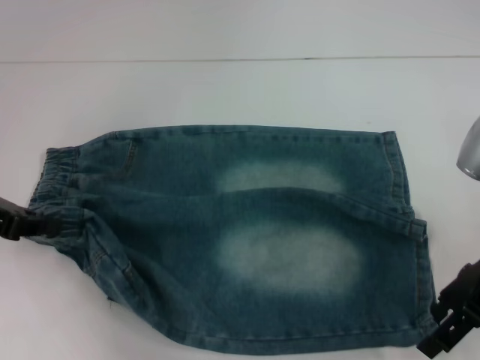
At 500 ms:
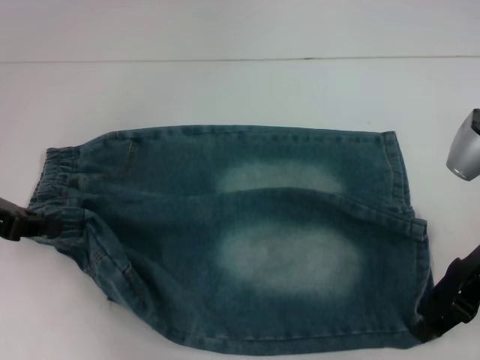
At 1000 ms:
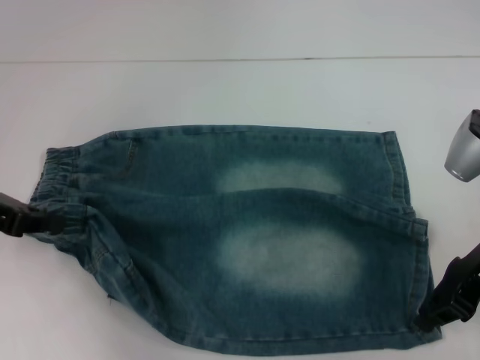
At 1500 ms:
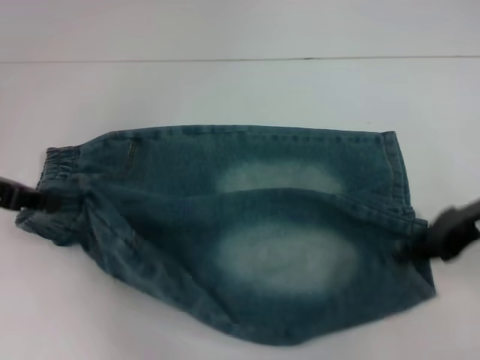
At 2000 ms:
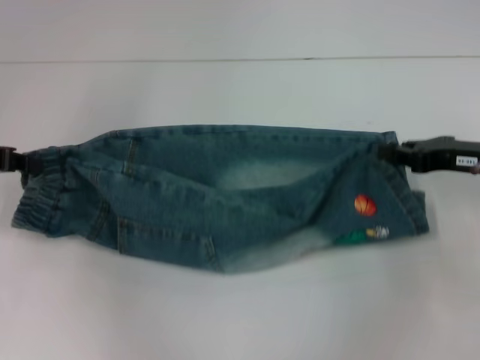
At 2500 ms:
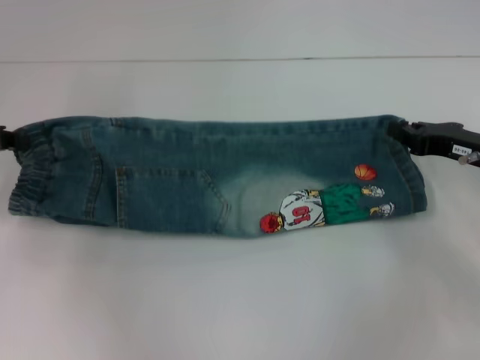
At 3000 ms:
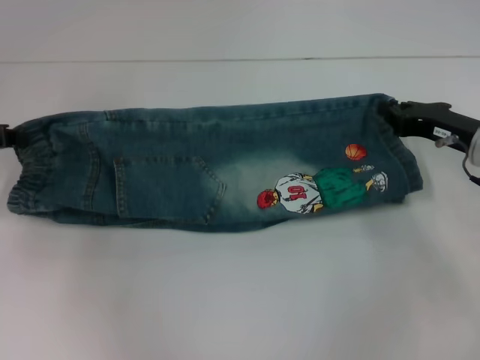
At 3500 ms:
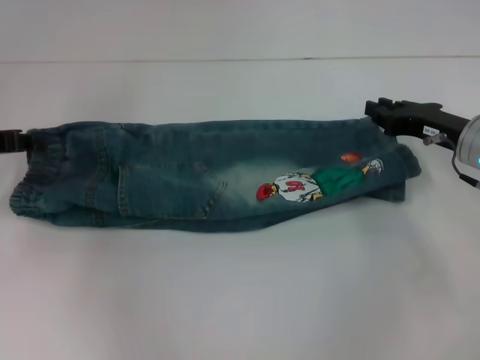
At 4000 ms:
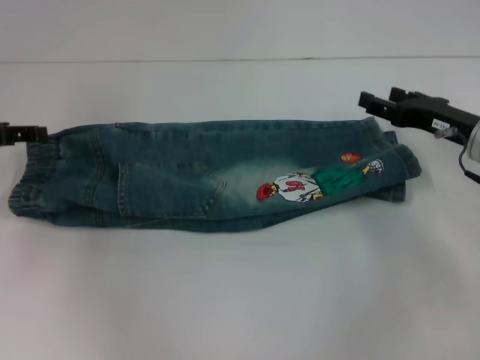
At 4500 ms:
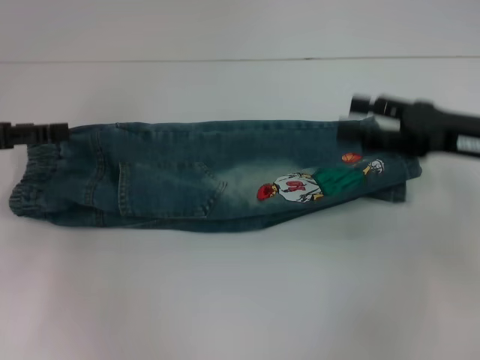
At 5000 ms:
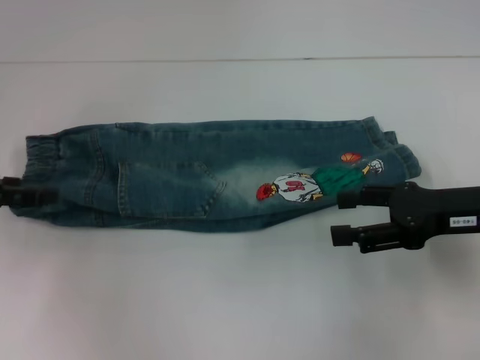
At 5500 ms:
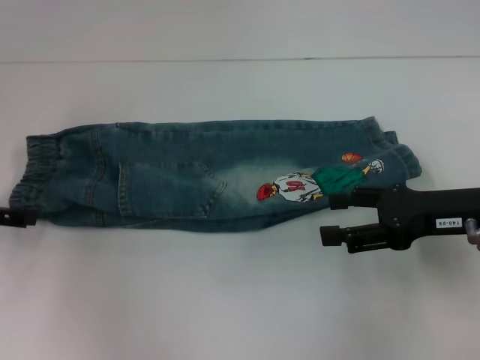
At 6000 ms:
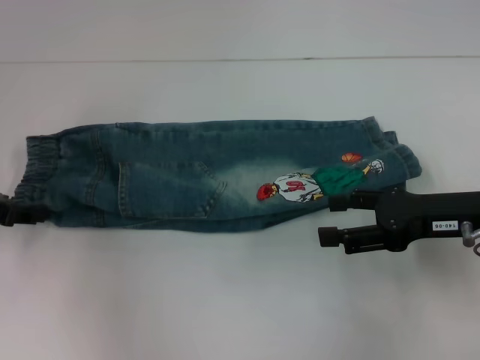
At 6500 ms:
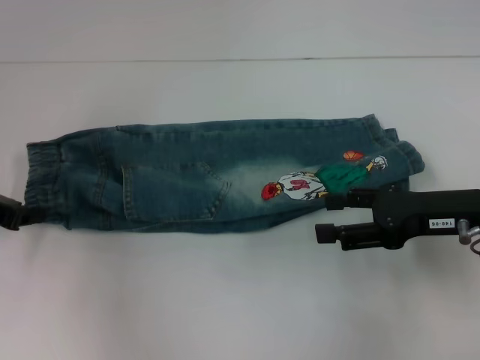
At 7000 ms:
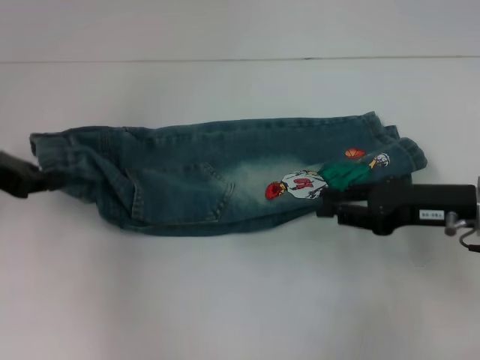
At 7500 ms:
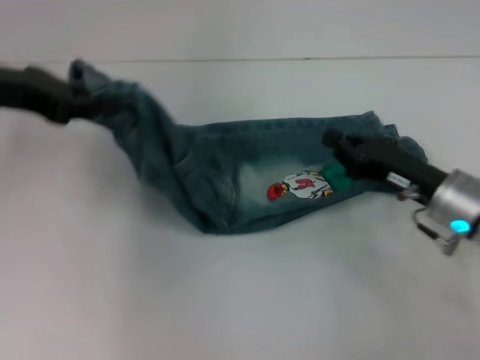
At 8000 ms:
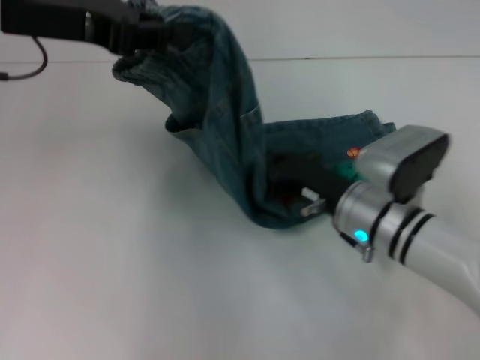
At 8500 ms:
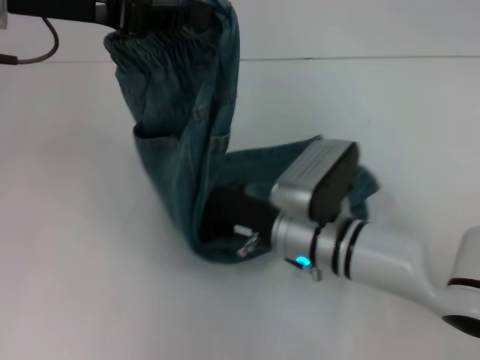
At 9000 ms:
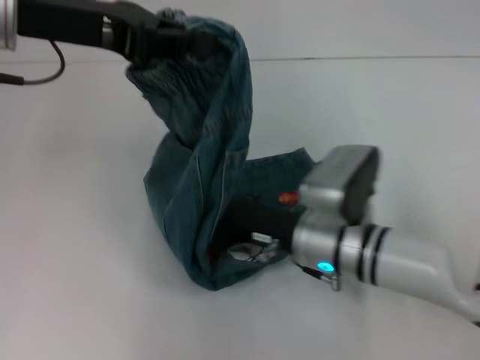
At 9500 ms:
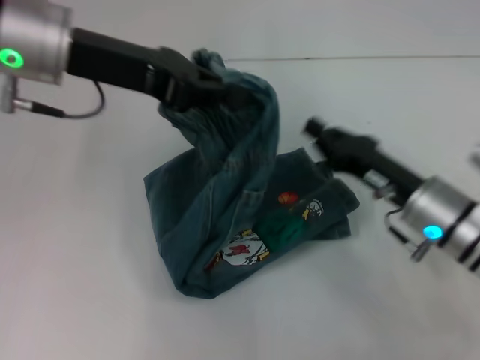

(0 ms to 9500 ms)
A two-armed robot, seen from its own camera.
Step, 1500 ms - 3500 ms: Fold upward with your right hand.
Step, 4000 ms - 6000 ms: Hold the waistband with your left hand.
Step, 7000 ms - 8500 ms: Press the middle of the pants with your left hand.
0 ms - 2000 ms: The right gripper shifts by roughly 5 cm, and closes.
2000 ms - 4000 ms: The left gripper opens up; the right gripper opens up.
4000 ms - 5500 ms: The left gripper opens up. The right gripper shifts roughly 5 cm backward, and opens its fingers.
5500 ms - 7500 ms: The left gripper travels upward and to the right by approximately 15 cm, and closes its fingers. The right gripper travels downward by some 5 cm, and closes up.
7500 ms - 9500 ms: The right gripper moves some 15 cm to the left and comes back, while the left gripper goes roughly 10 cm to the right.

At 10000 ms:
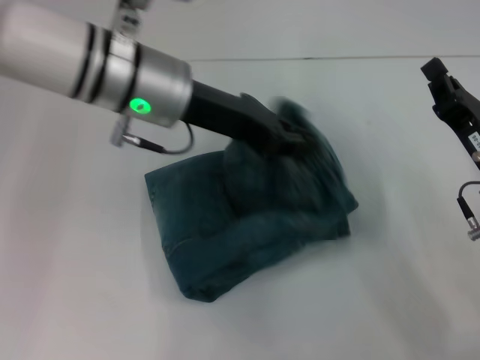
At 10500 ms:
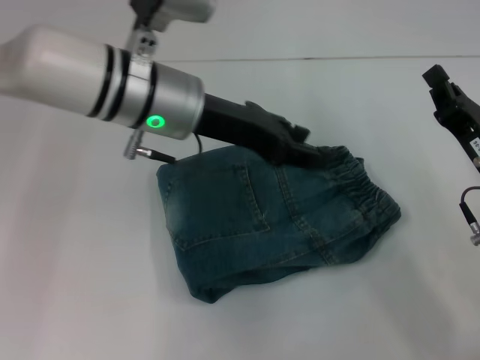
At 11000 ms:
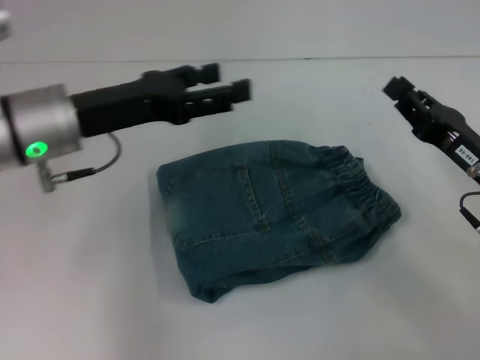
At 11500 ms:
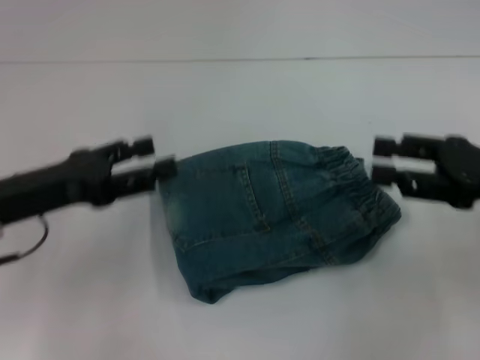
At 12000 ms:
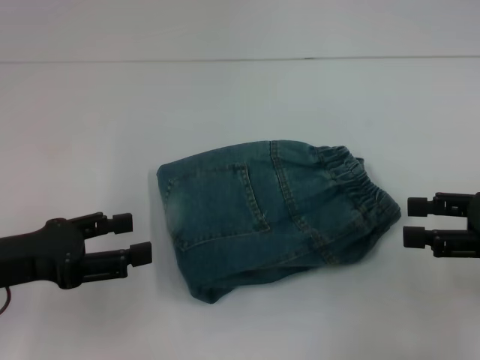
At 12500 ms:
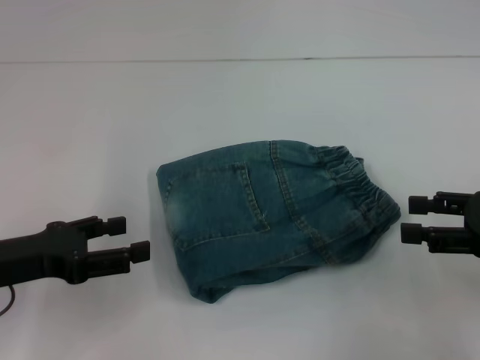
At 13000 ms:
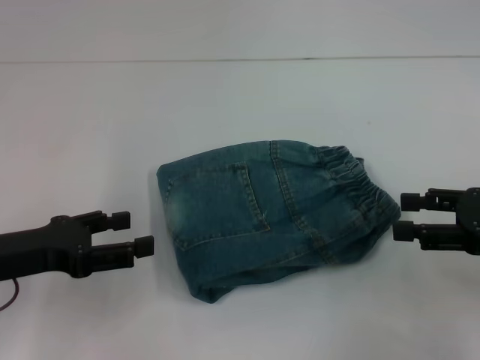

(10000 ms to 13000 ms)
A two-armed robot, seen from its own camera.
10000 ms - 11500 ms: The right gripper heads upward, covering about 10 cm, and opens its fingers. Meanwhile the left gripper shifts roughly 20 cm to the left, backward and downward, and opens up.
11500 ms - 13000 ms: The grippers make only small movements.

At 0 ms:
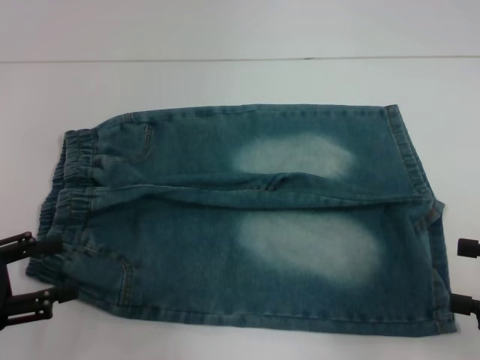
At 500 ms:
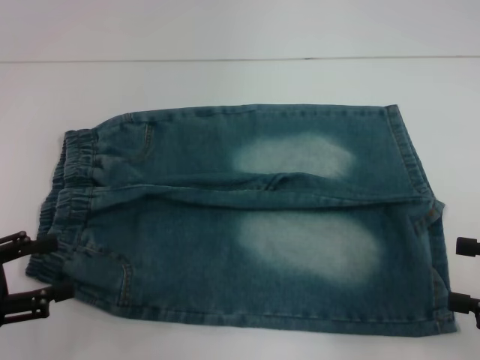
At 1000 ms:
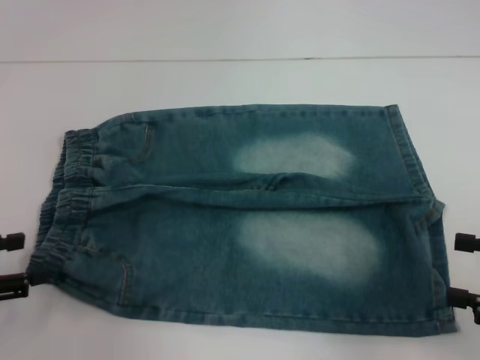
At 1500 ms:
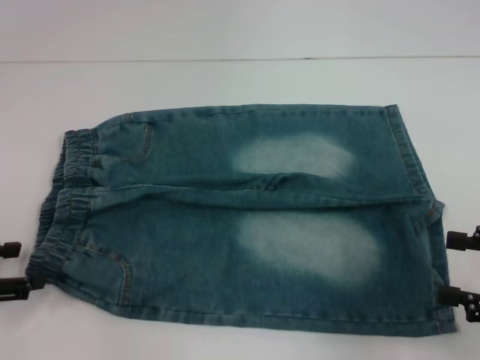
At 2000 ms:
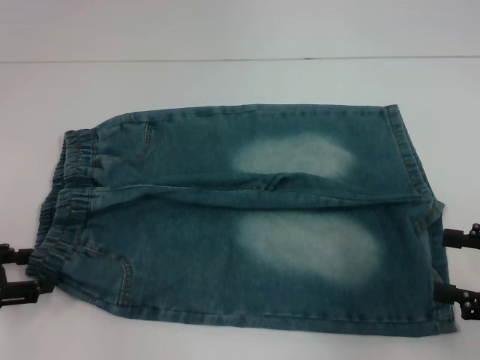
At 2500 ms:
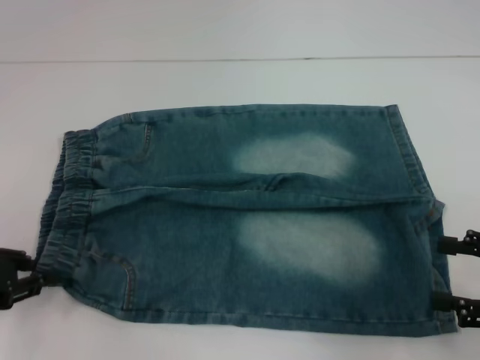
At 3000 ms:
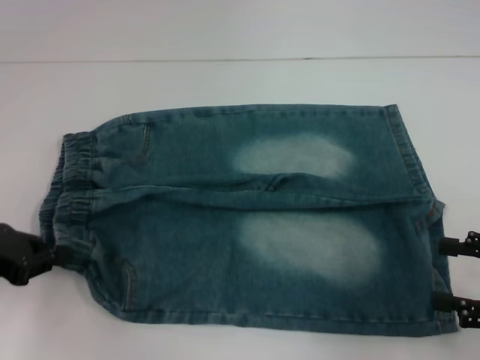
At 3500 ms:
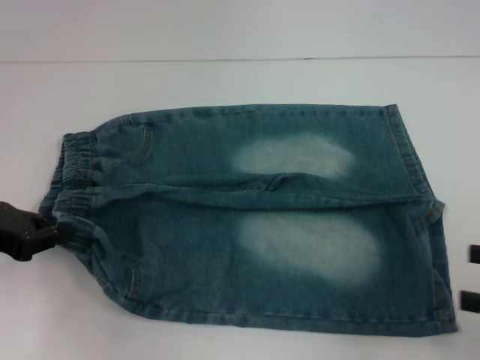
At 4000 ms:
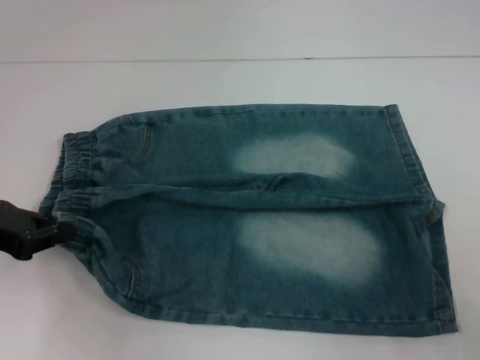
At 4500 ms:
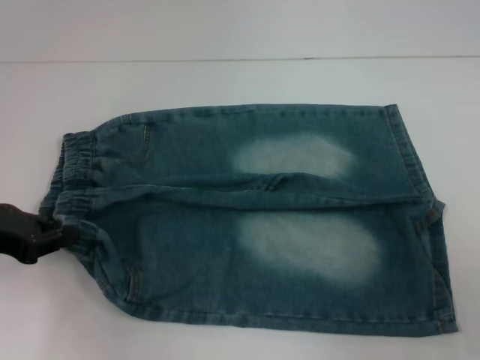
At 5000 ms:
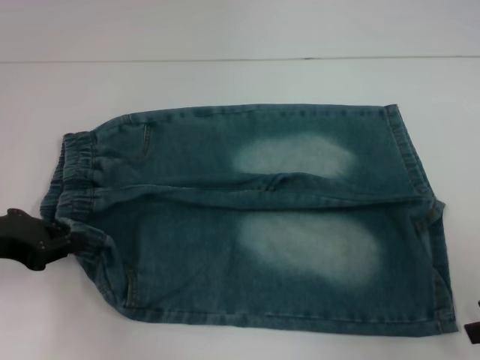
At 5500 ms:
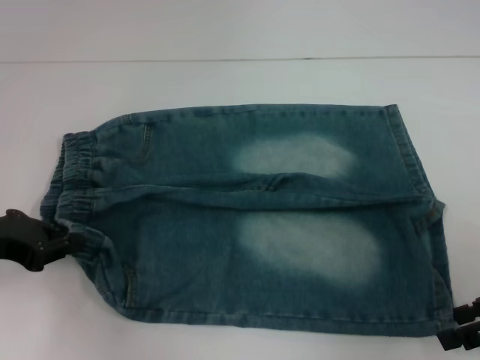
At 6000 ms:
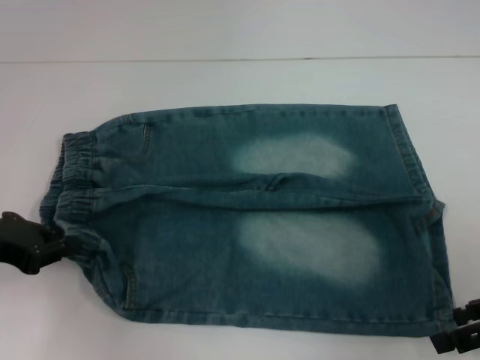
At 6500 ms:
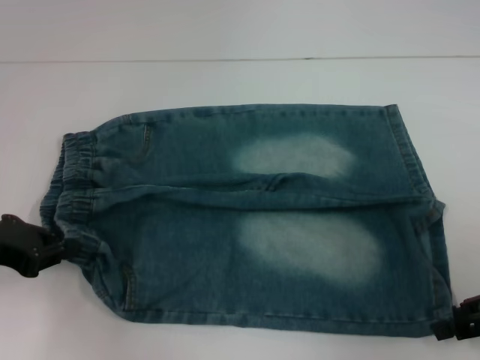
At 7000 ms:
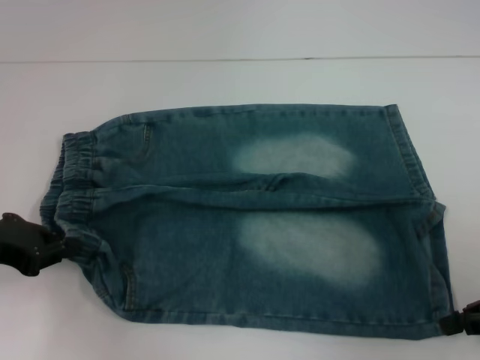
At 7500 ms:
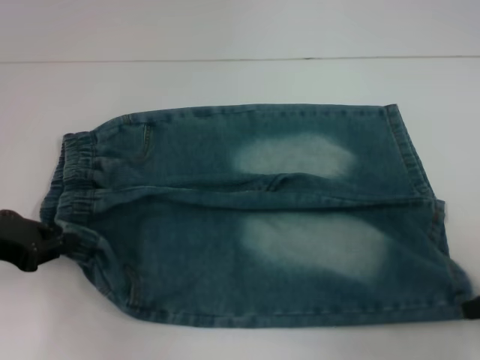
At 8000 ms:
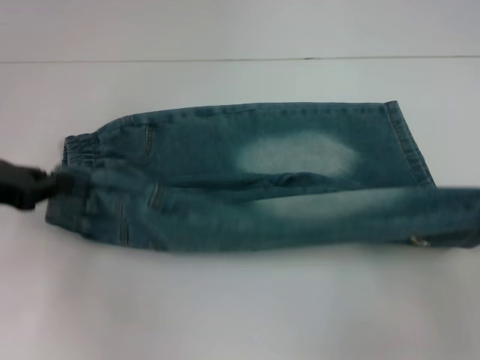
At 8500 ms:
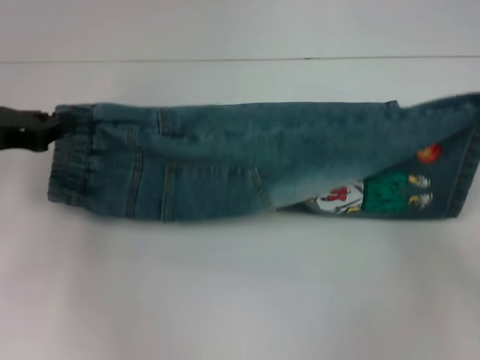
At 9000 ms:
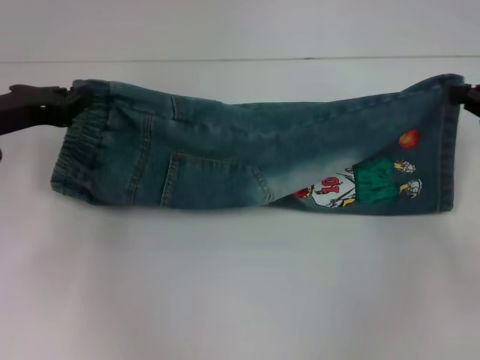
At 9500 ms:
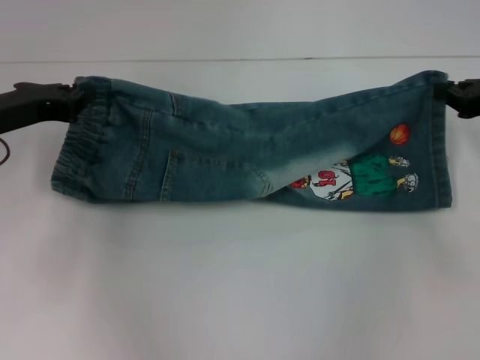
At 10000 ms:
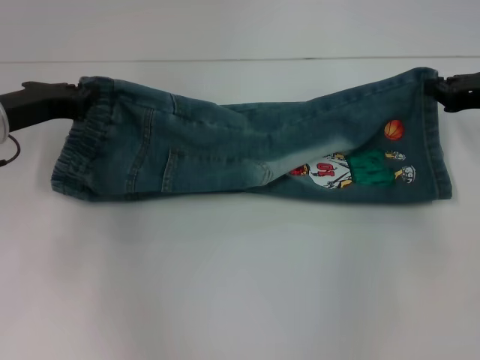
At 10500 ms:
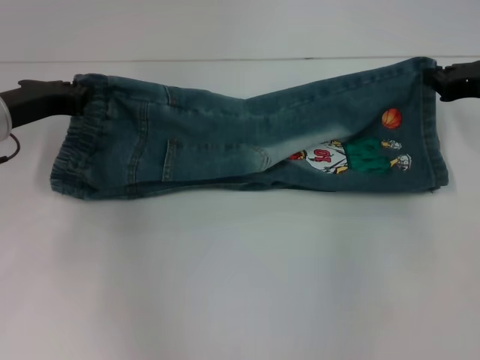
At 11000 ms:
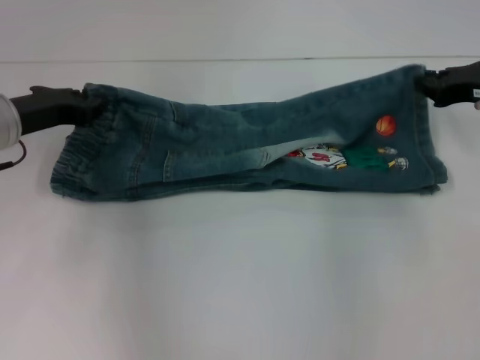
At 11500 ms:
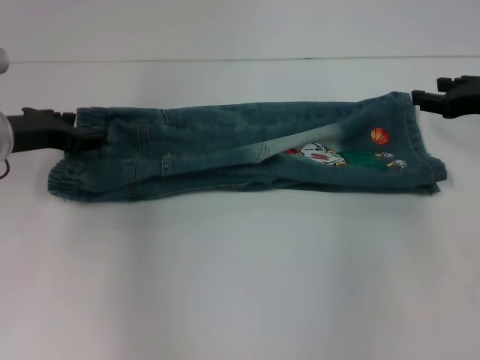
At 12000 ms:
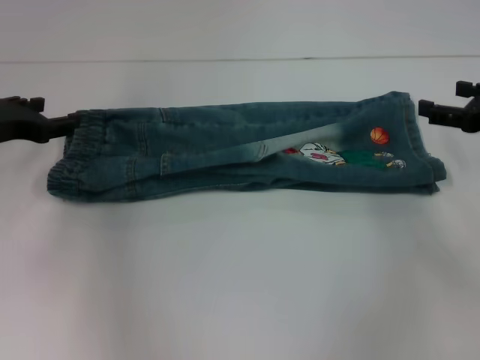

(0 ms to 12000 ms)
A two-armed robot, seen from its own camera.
Step, 0 ms - 2500 ms: Hold the lower left waistband with your left hand.
Step, 3000 ms - 7000 ms: Grab the lower right pant leg with your right hand.
Step, 7500 ms - 11500 ms: Fold upward with your right hand.
2000 ms - 4000 ms: The right gripper changes place by some 5 cm; the left gripper ends up roughly 5 cm from where it was, and closes its fingers.
4000 ms - 6000 ms: The right gripper travels forward and to the left by approximately 10 cm.
6000 ms - 8000 ms: The right gripper travels upward and to the right by approximately 10 cm, and closes up.
8000 ms - 10000 ms: The right gripper goes about 15 cm forward and to the left. Meanwhile the left gripper moves forward and to the right, some 10 cm.
10000 ms - 12000 ms: The right gripper opens up. Meanwhile the left gripper opens up.
